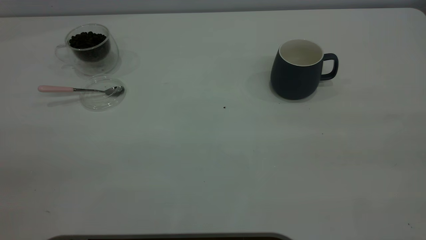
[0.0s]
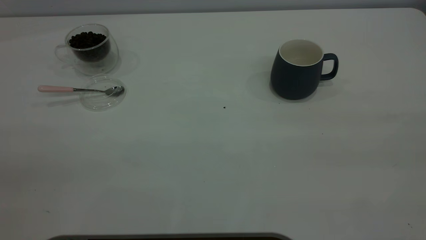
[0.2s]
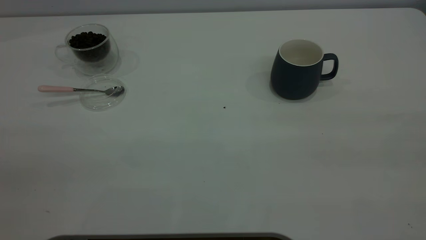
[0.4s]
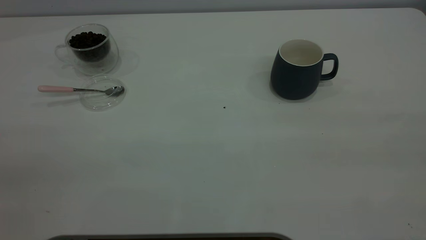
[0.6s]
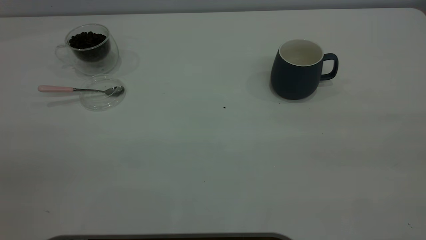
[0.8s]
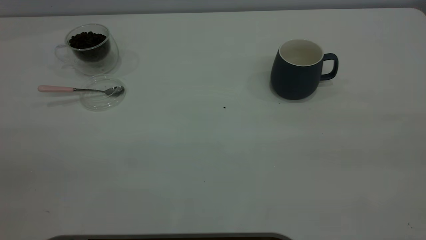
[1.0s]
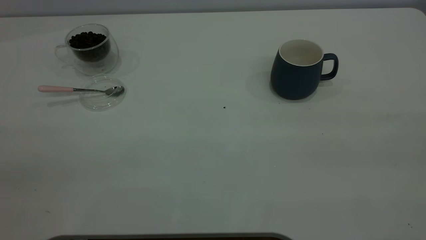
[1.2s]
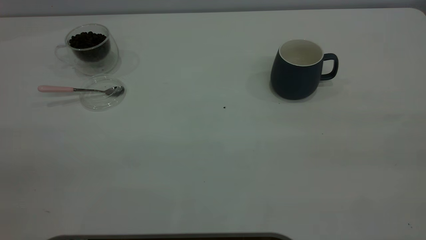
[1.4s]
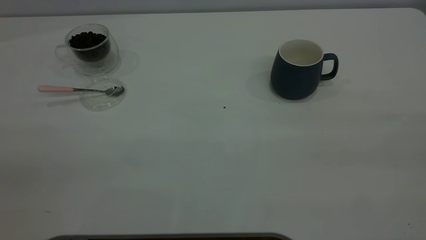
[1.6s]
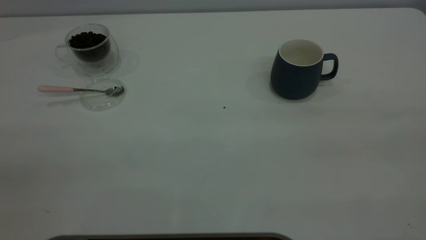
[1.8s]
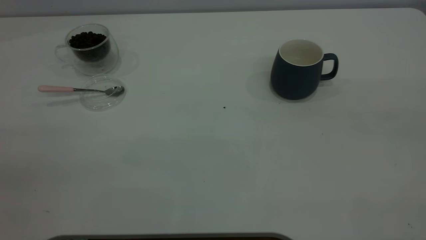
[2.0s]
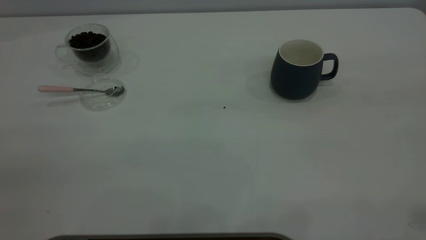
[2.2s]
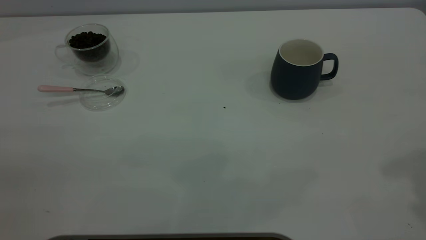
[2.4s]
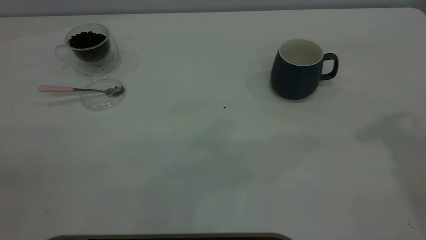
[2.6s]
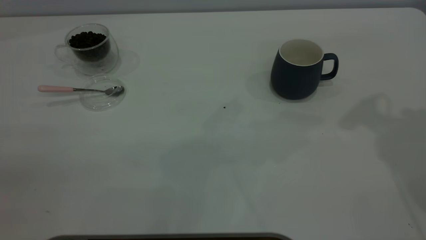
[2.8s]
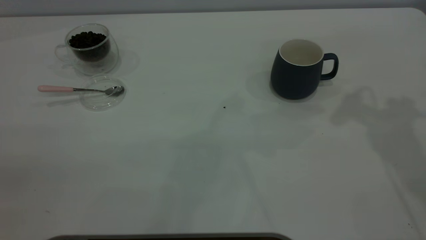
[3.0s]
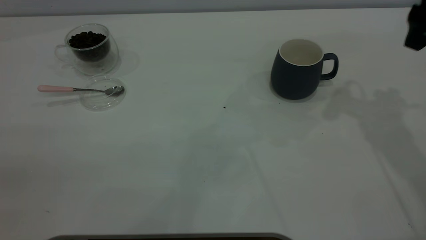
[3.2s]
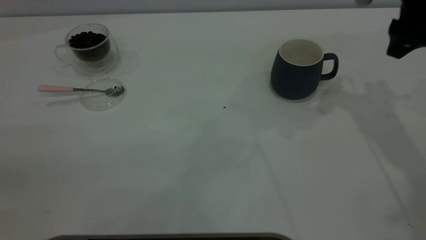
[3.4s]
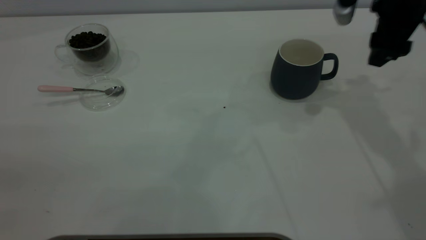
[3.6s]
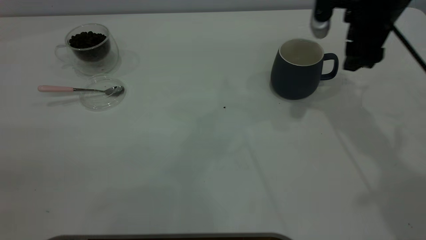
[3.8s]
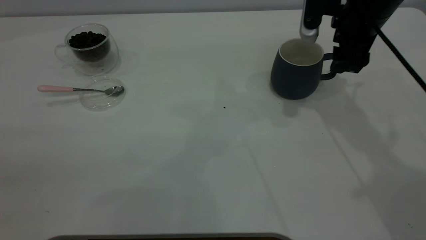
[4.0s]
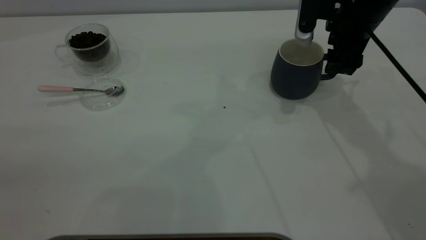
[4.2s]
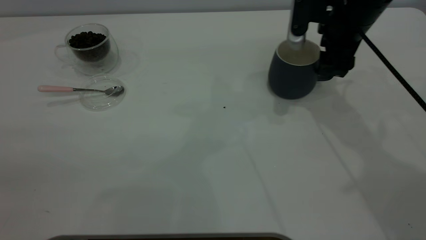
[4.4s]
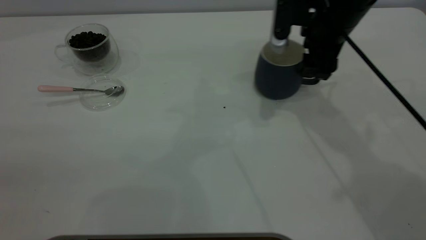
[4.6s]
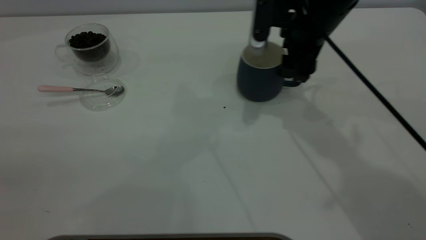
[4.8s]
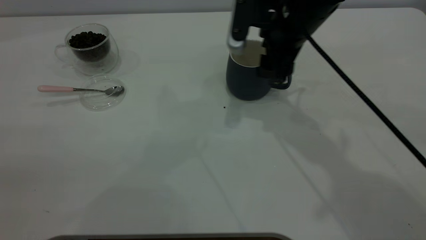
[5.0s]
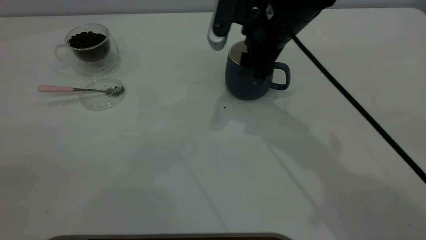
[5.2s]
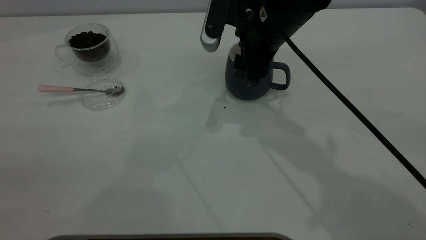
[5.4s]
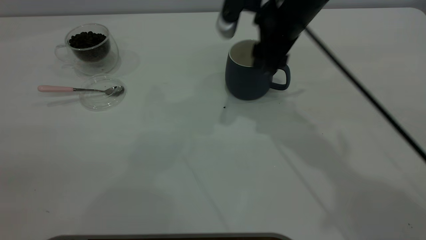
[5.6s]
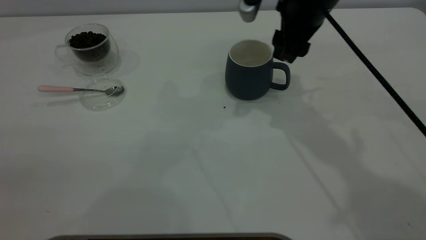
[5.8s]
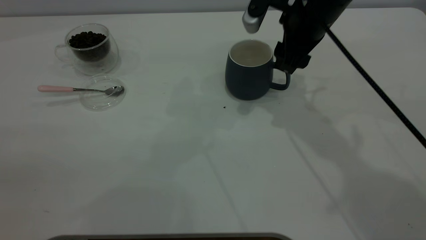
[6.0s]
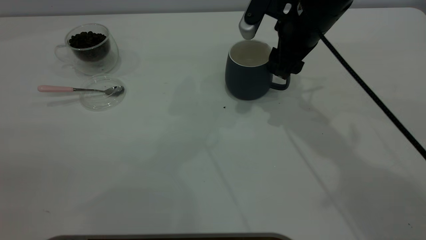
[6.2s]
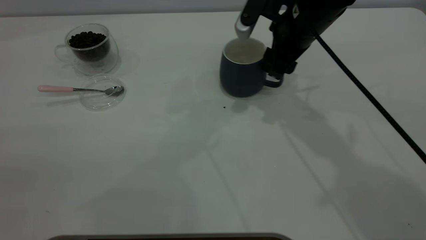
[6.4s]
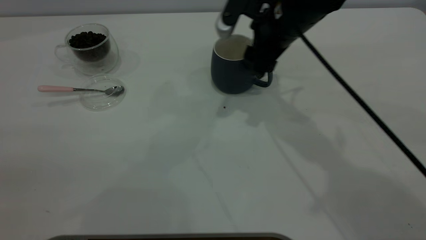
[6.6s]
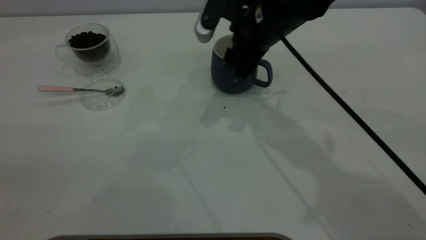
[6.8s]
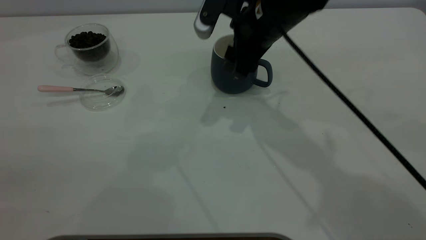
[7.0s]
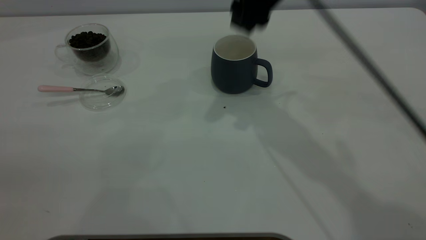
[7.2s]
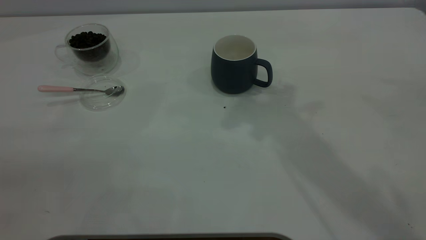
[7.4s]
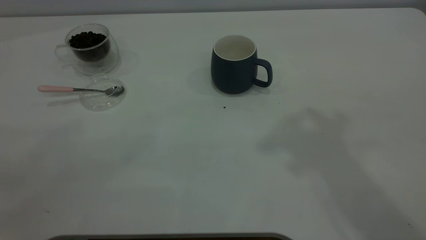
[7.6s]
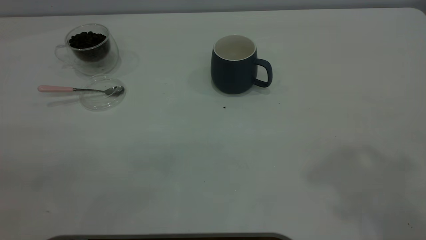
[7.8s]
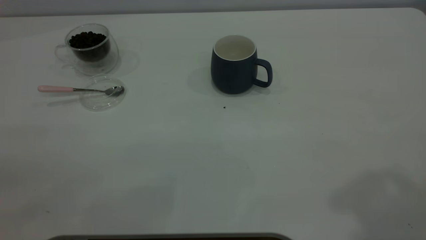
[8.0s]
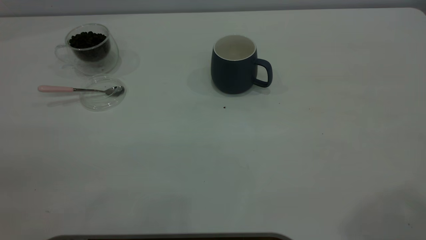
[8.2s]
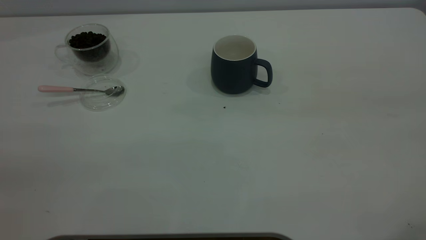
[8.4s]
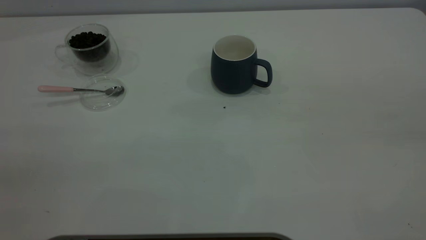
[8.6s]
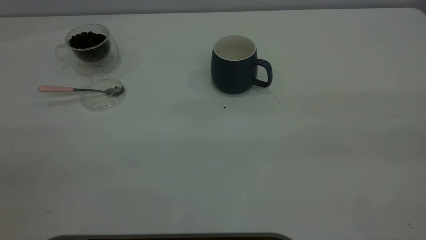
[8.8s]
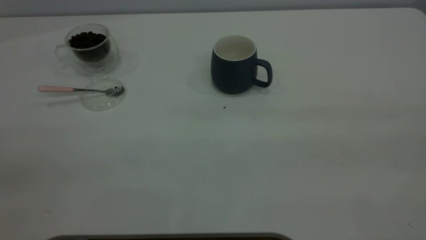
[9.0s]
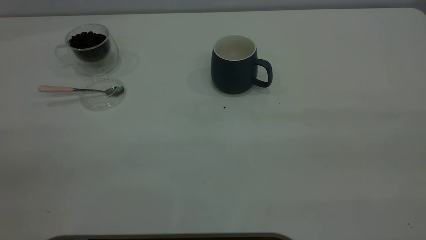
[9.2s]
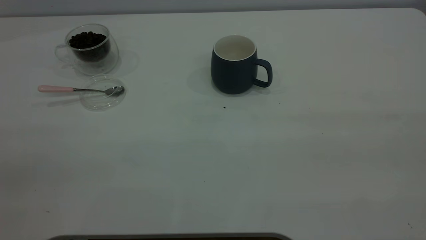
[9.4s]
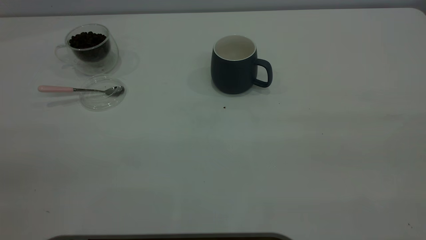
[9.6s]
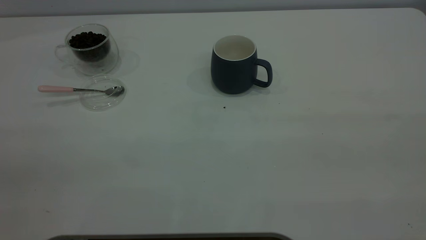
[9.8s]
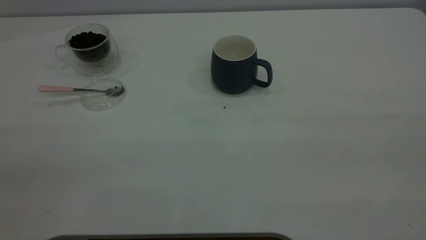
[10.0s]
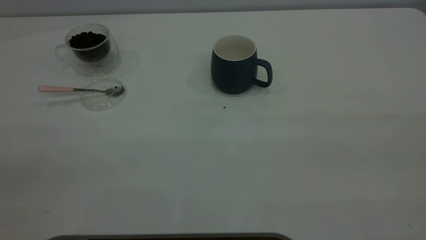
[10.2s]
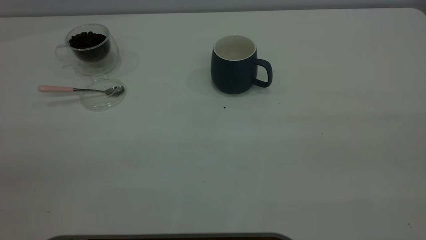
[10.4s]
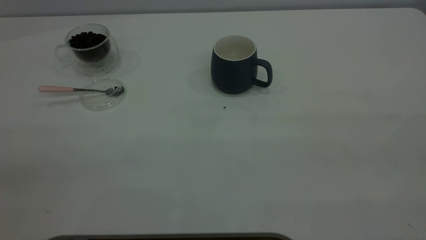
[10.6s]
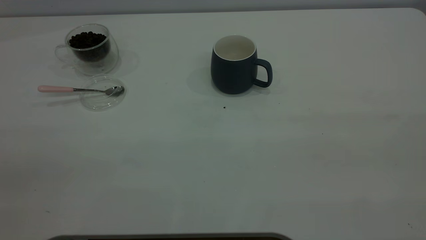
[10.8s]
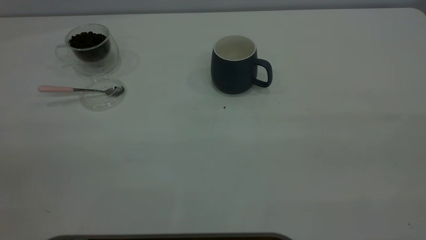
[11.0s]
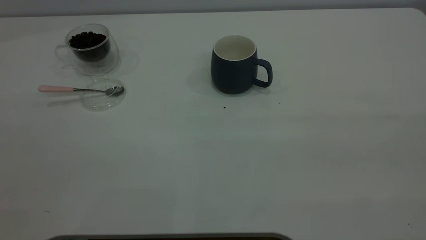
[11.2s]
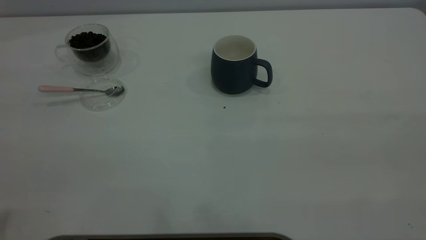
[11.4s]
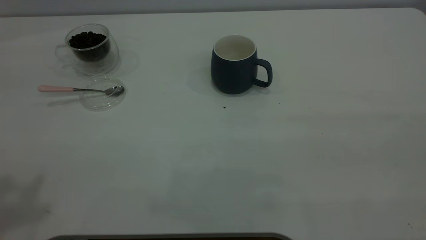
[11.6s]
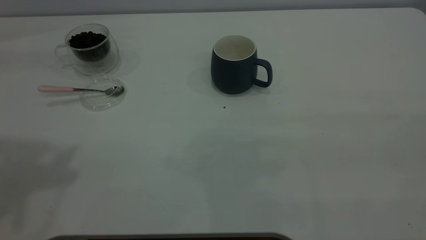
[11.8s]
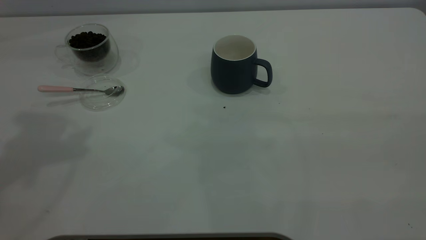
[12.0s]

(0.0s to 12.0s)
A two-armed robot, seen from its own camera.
Task of the whole recording: the right gripper place the grey cup in the center of the table, the left gripper take the pink spoon from the cup lid and scoop out the coffee beans from the coffee cup and put them into the grey cup, the left gripper put the spoon back into the cup lid.
Step, 0.0s - 7.0s: Move the cup to the center of view.
0.0s - 1.6s: Both grippers stay about where they are.
3.0s - 4.4s: The right gripper is displaced downward, to the left and forward by approximately 15 cm, and closes.
4.4s - 6.0s: The right gripper moves to the left, some 5 cm, and closes up.
6.0s - 7.6s: The right gripper shifts roughly 35 cm upward and backward.

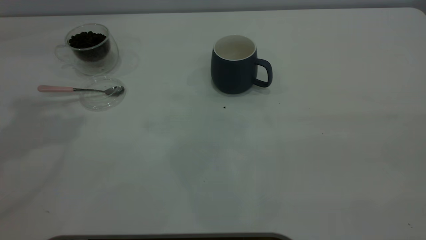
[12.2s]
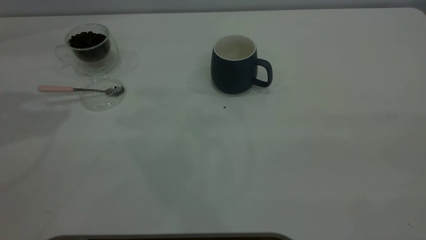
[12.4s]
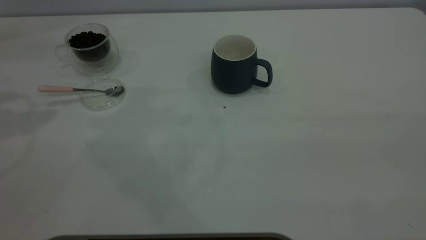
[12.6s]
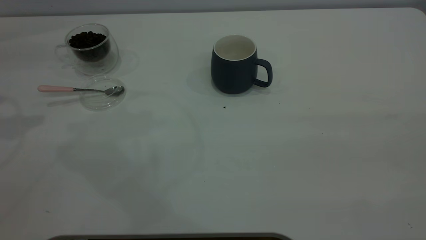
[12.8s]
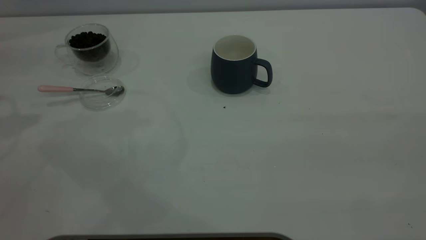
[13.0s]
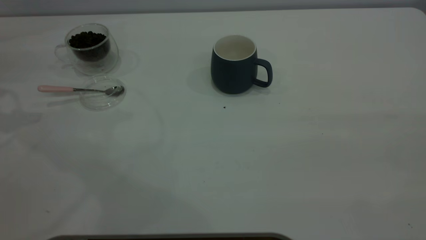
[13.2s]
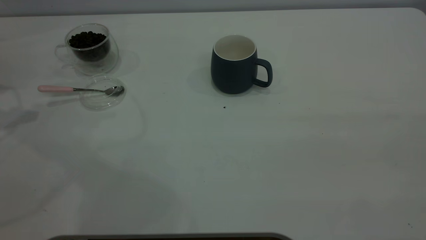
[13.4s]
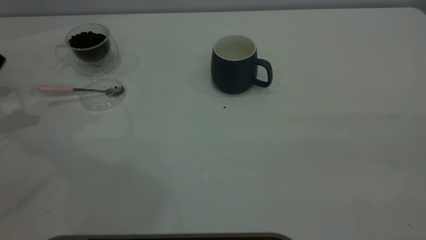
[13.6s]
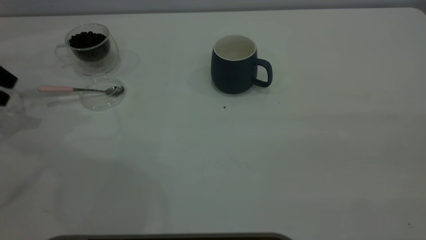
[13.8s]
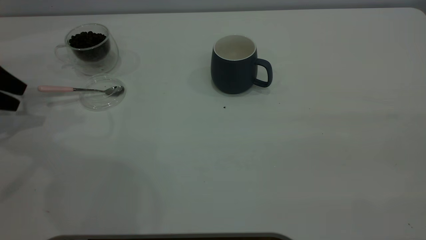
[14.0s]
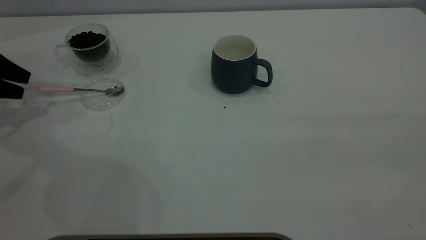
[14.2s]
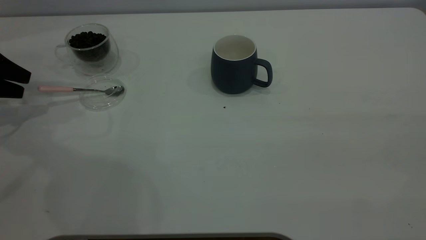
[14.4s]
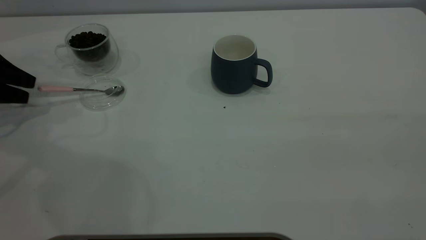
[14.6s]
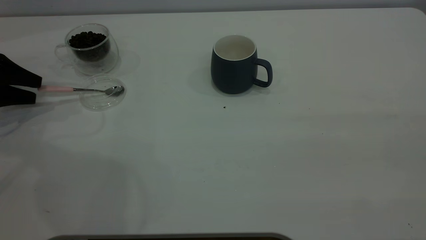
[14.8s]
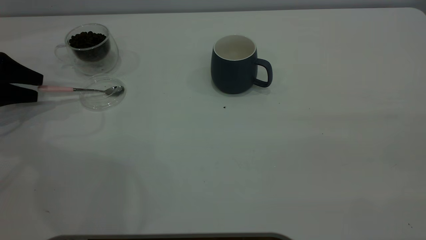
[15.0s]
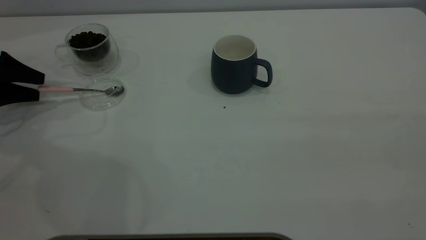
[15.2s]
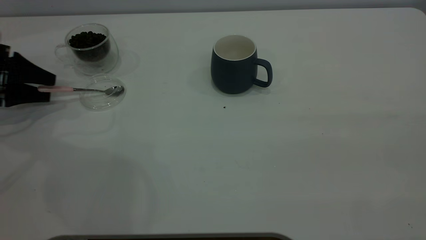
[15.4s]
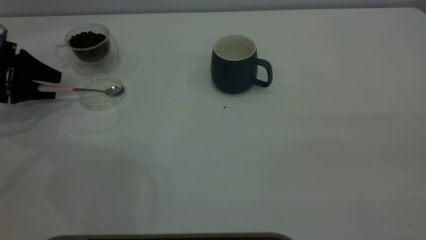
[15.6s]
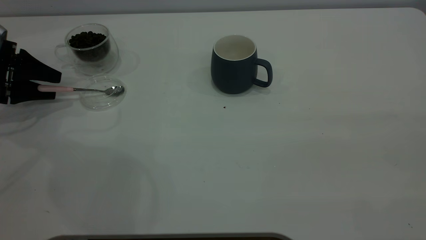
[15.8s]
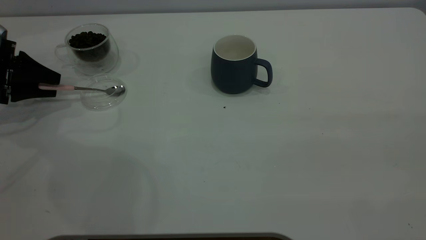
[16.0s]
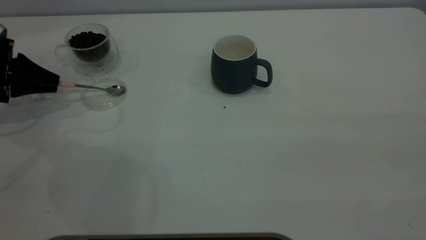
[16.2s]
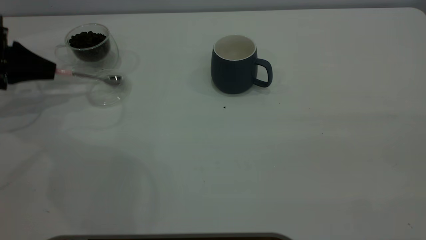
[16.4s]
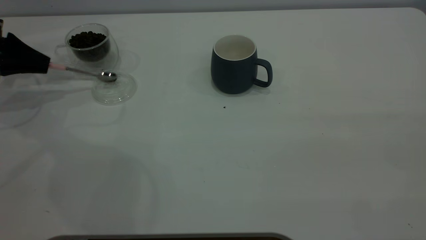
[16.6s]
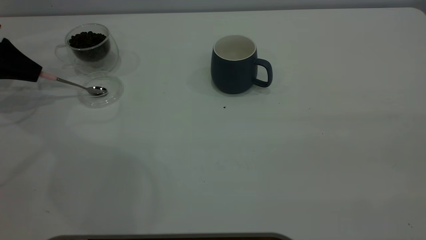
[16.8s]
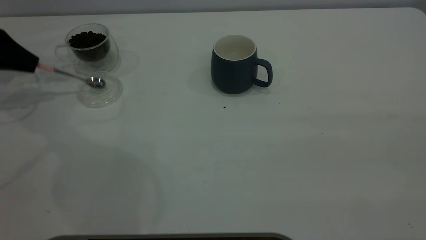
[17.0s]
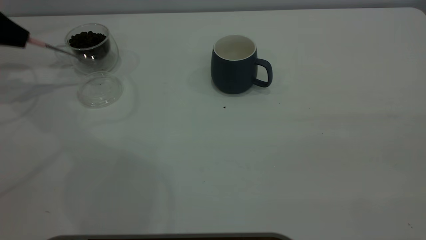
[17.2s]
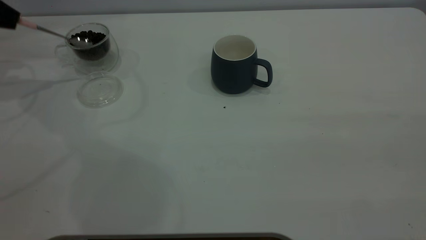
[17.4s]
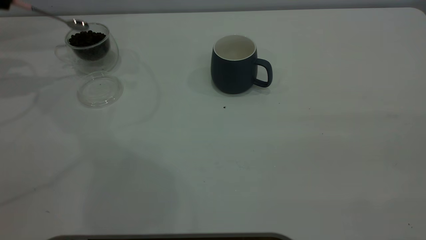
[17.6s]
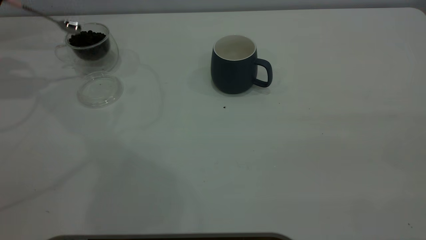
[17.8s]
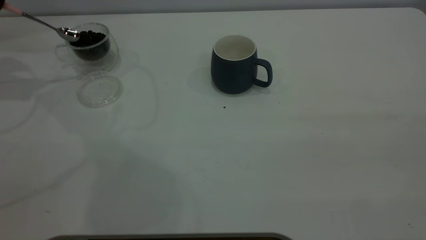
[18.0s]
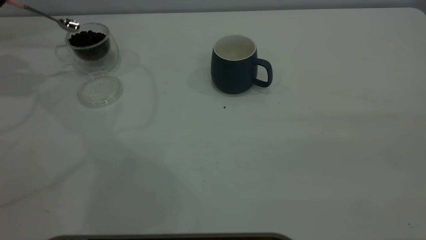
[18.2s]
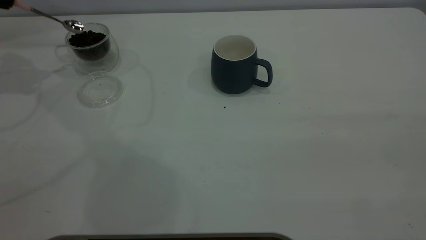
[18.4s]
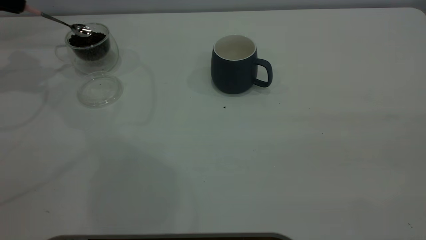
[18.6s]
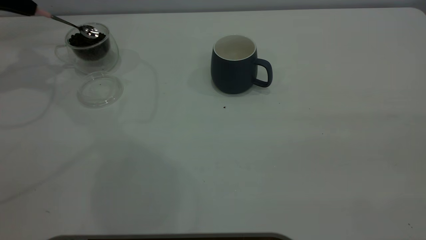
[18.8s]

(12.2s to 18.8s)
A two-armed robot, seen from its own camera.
Task of the whole recording: the right gripper place the grey cup in the center of the table, the left gripper take the pink spoon from the cup lid and scoop out the coffee beans from the coffee cup and put them into the grey cup, the left gripper put the spoon back into the cup lid.
Step, 12.2s - 17.2s: Pick up the spoon.
12.2s - 13.8s: The left gripper is displaced downward and to the left by roughly 30 cm.
13.8s - 15.4s: The left gripper moves about 5 cm.
15.4s - 17.2s: The left gripper goes roughly 10 cm upward, and closes its fingers.
